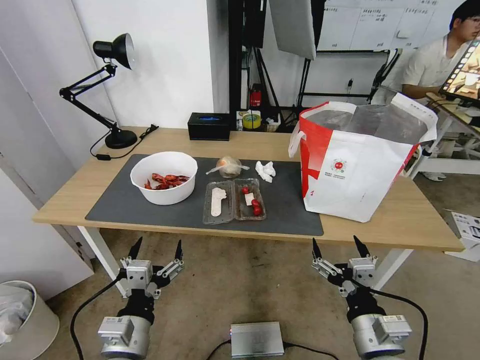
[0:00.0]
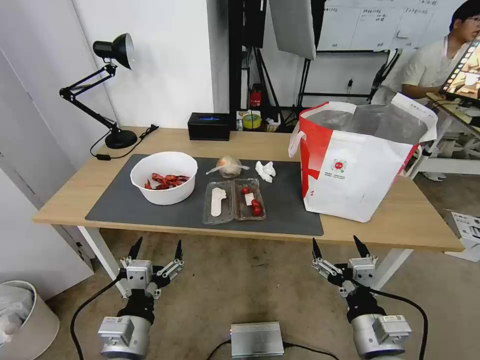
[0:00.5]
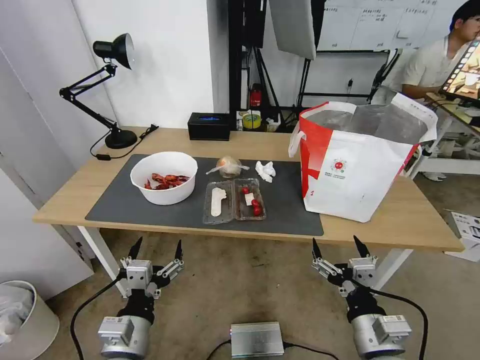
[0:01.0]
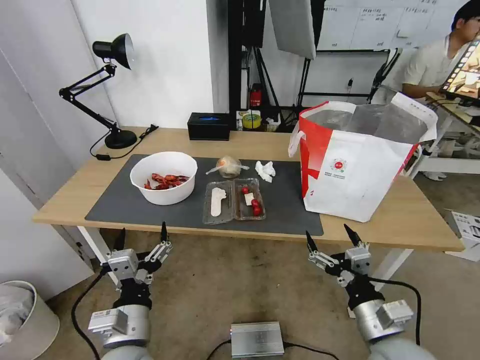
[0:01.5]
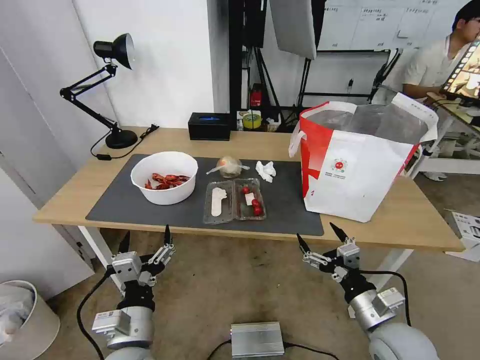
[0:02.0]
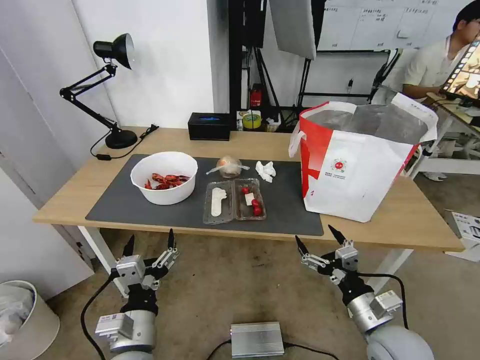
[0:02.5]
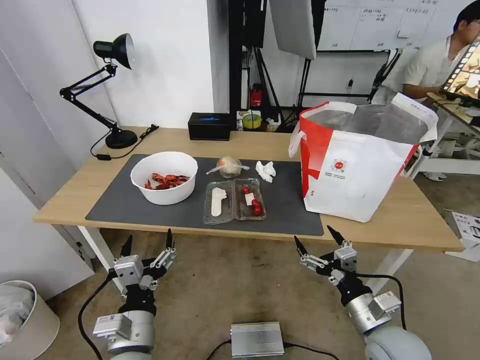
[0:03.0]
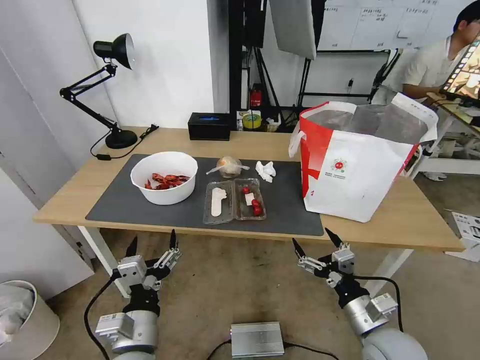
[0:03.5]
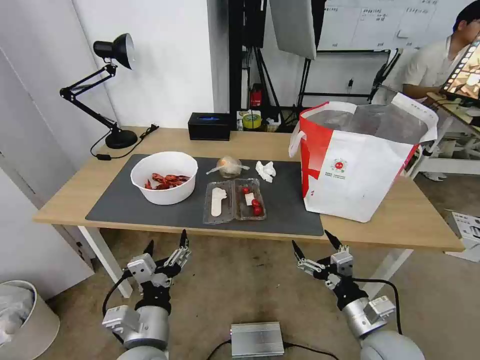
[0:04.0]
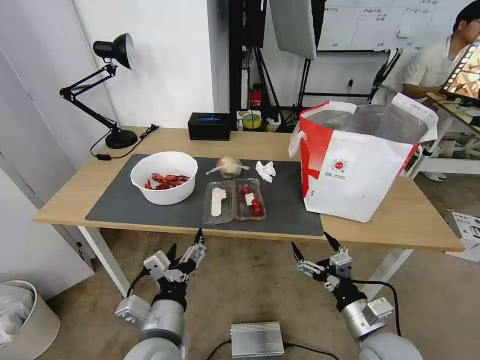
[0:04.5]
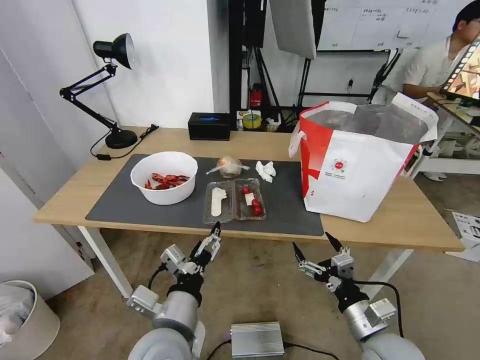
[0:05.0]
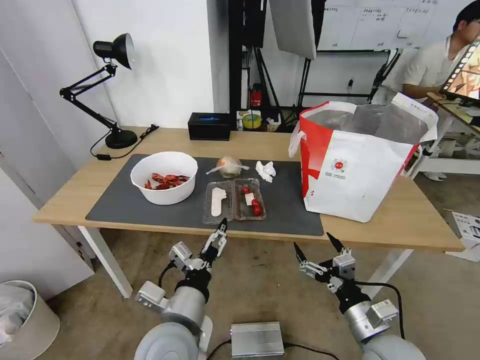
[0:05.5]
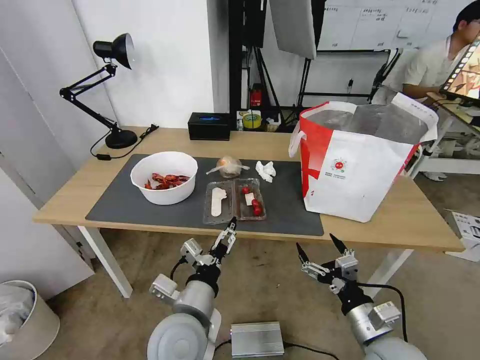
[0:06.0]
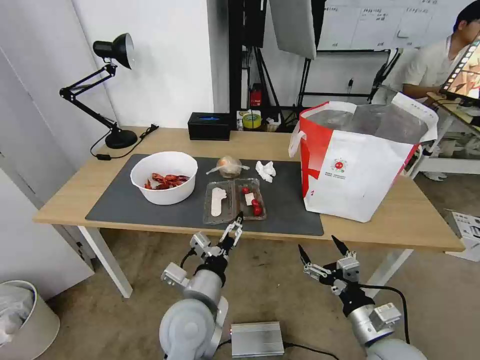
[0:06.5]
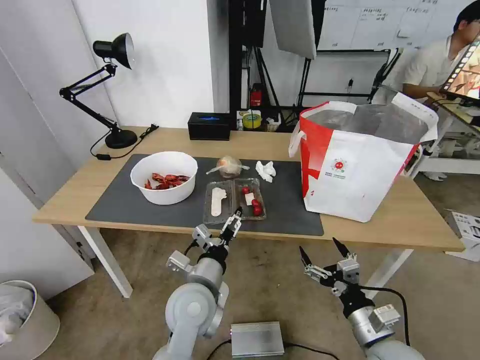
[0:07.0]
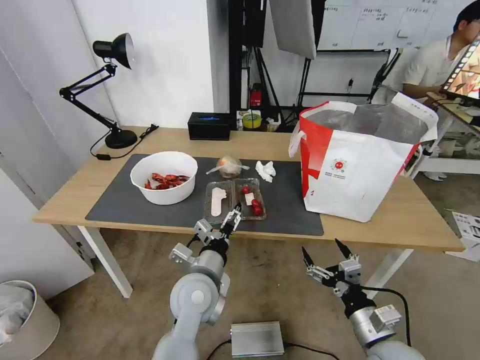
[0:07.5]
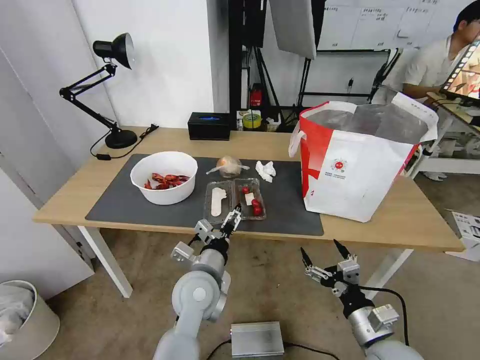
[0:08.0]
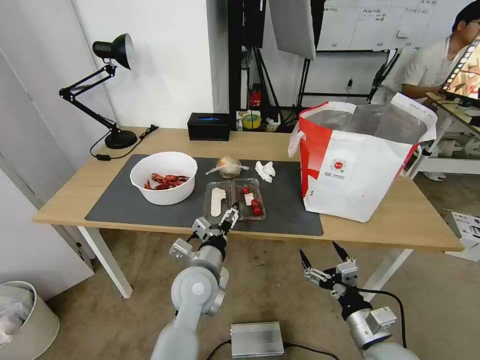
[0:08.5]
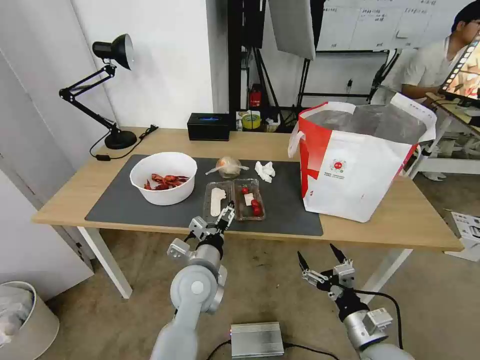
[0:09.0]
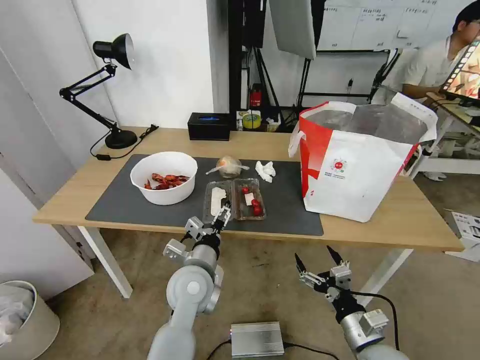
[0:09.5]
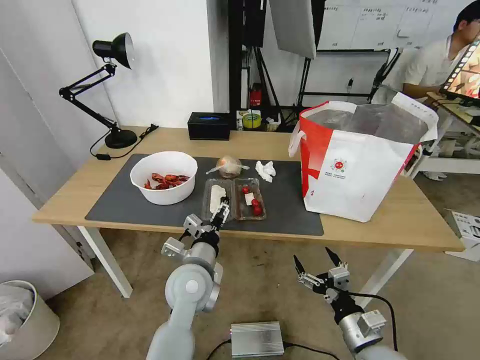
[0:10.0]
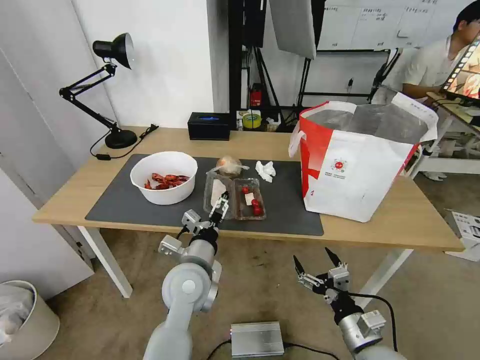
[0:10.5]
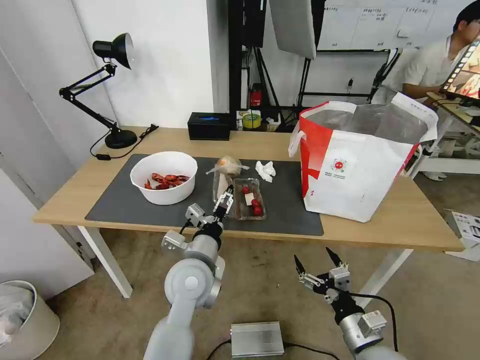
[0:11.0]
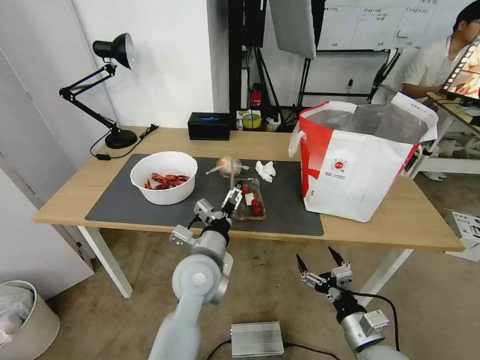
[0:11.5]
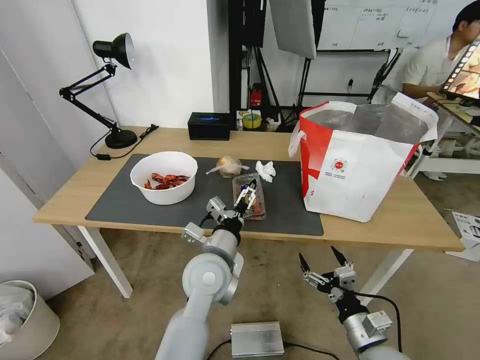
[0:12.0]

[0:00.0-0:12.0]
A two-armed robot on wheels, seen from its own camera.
Task of the whole recording: Pick up the trash from the table and place it into the takeout bag.
0:02.0 to 0:04.0: There are only small adjustments of the grippers.
0:04.0 to 0:06.0: The left gripper is displaced to the right by about 5 cm.
0:06.0 to 0:08.0: The left gripper shifts approximately 10 cm forward.
0:08.0 to 0:12.0: The grippers stay close to where they were, moving slightly.

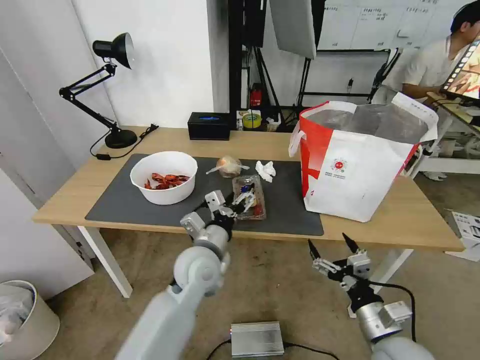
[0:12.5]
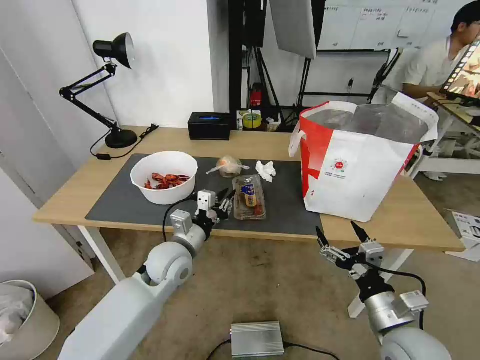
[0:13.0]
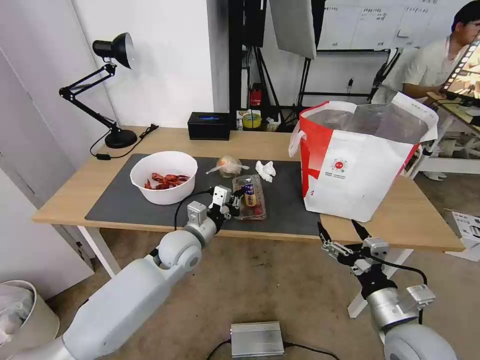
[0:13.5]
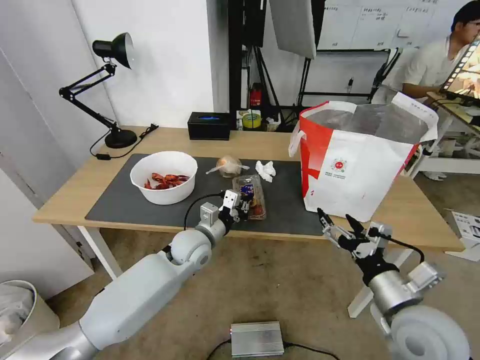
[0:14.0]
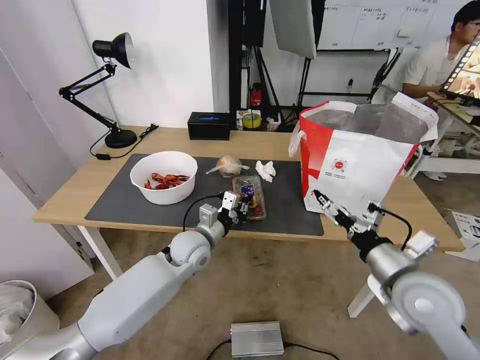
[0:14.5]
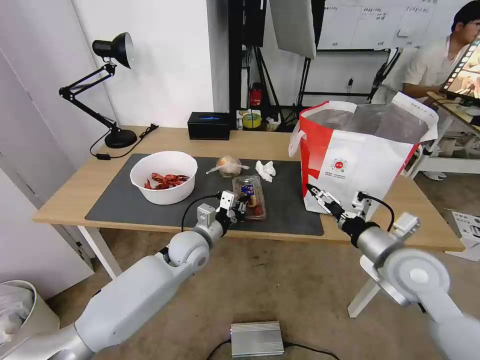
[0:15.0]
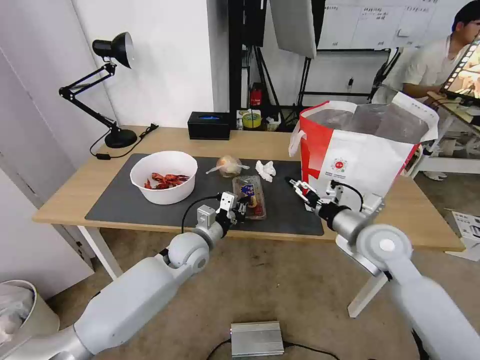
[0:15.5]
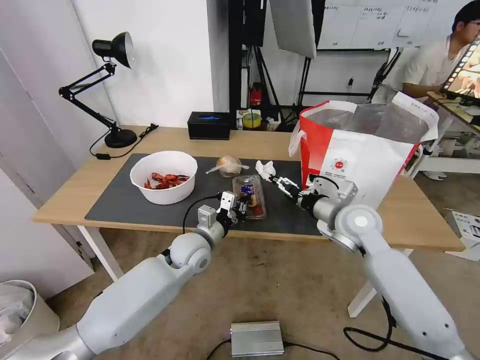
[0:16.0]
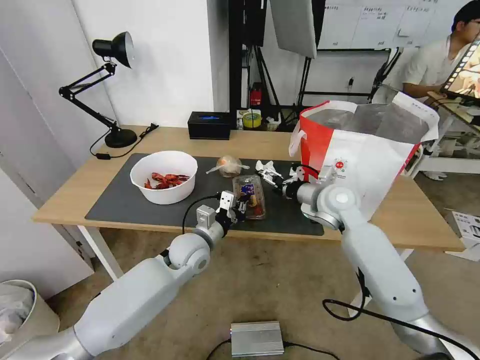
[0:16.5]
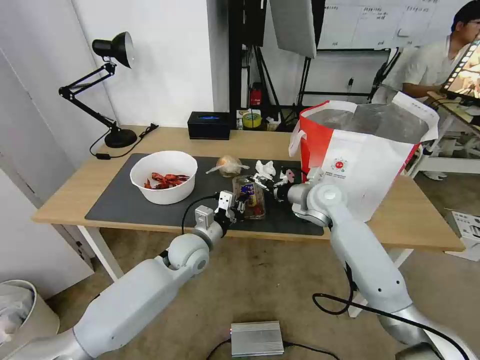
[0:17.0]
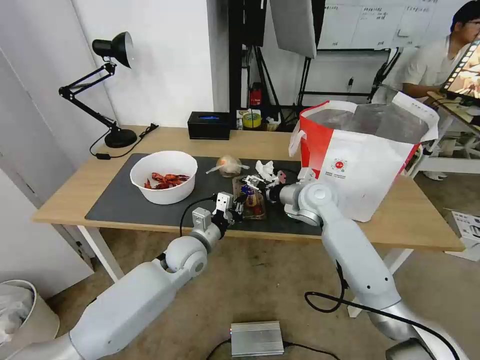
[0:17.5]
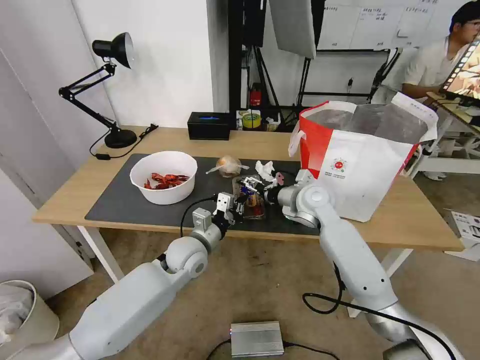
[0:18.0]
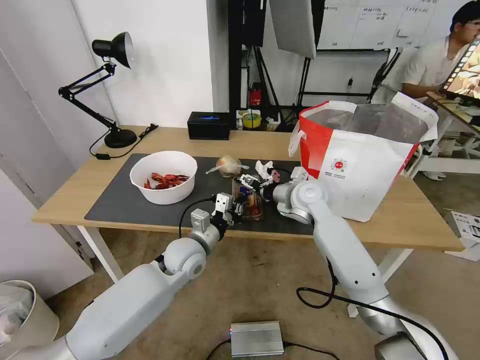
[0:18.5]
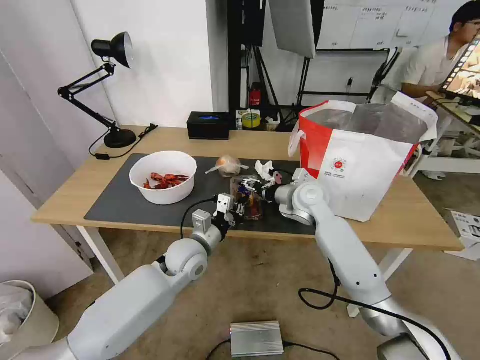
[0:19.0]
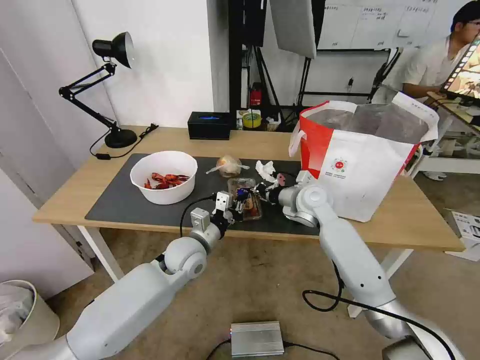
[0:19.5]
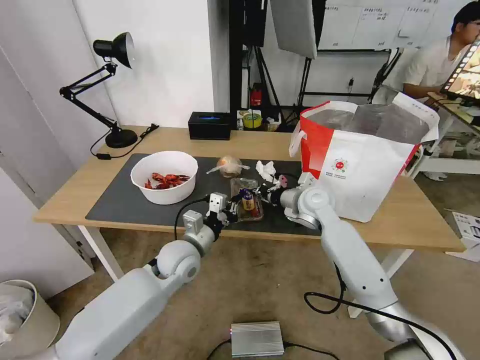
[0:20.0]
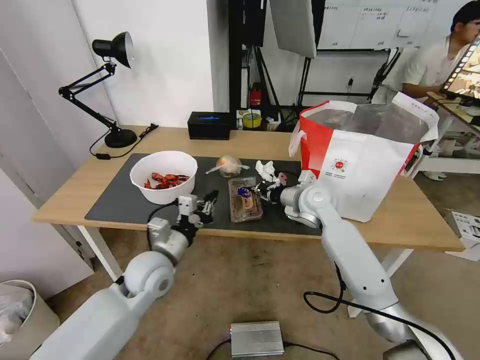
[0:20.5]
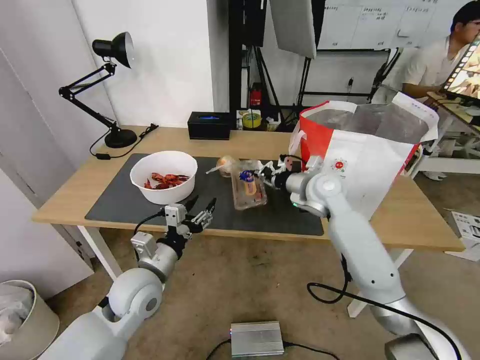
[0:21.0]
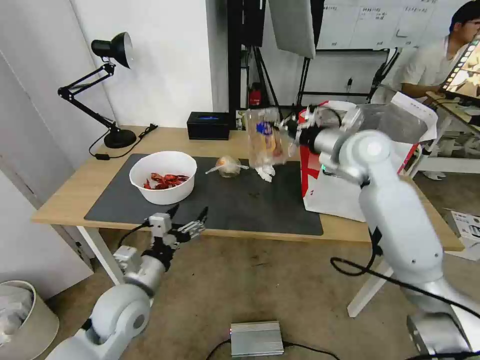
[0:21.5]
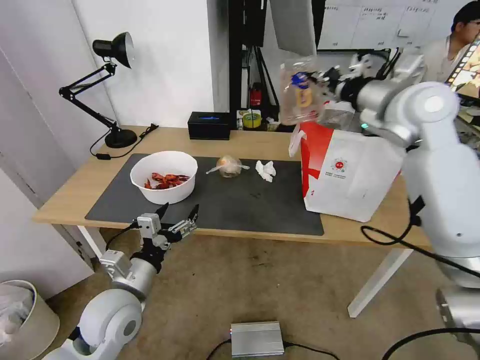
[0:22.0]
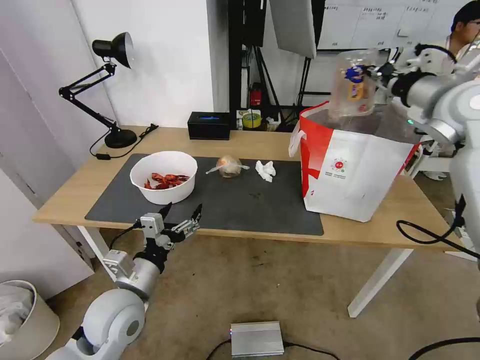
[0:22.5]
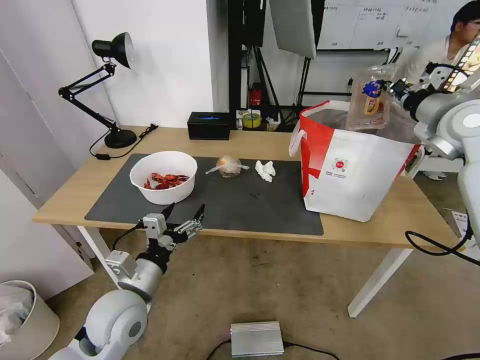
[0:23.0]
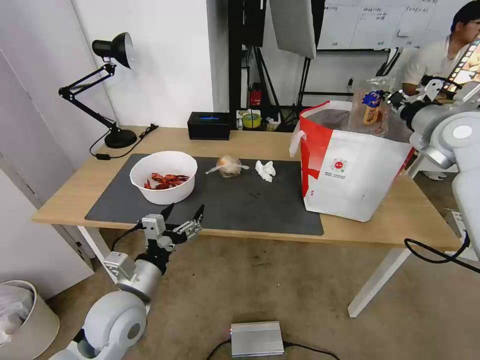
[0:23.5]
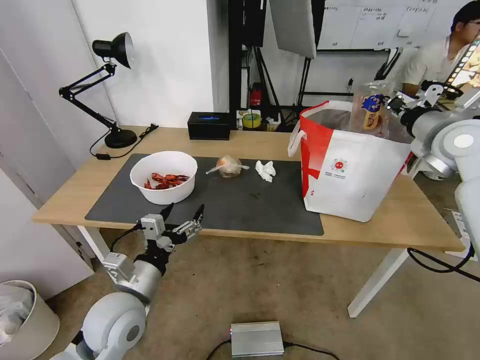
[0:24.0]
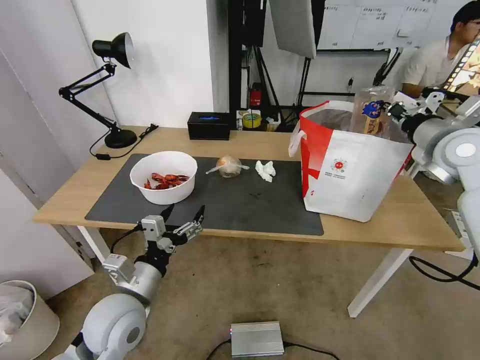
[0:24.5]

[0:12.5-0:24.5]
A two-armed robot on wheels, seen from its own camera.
Task of the whole recording: Pick up the trash from the table and place it into the takeout bag.
0:12.5 to 0:14.5: The left gripper moves forward, approximately 5 cm, and closes, while the right gripper travels upward and forward by approximately 15 cm.
0:14.5 to 0:16.5: The right gripper heads forward, covering about 20 cm.
0:16.5 to 0:18.5: The right gripper moves to the left, approximately 5 cm.
0:18.5 to 0:20.5: The left gripper travels to the left and backward by some 10 cm. Meanwhile the right gripper closes.
0:20.5 to 0:22.5: The left gripper shifts roughly 10 cm backward, and opens up. Meanwhile the right gripper heads upward and to the right, covering about 30 cm.
0:22.5 to 0:24.5: The right gripper travels downward by about 5 cm.

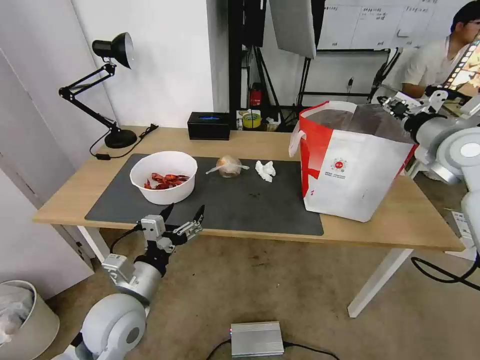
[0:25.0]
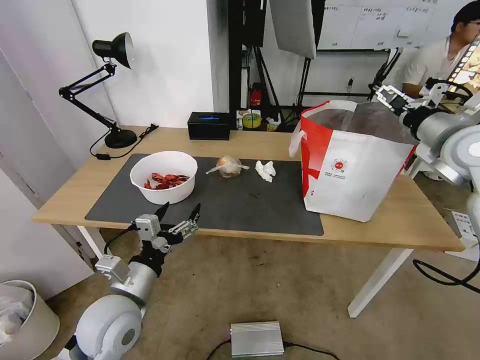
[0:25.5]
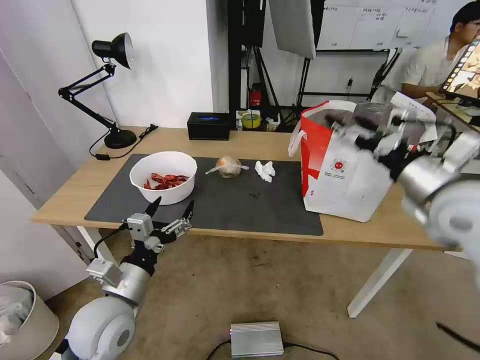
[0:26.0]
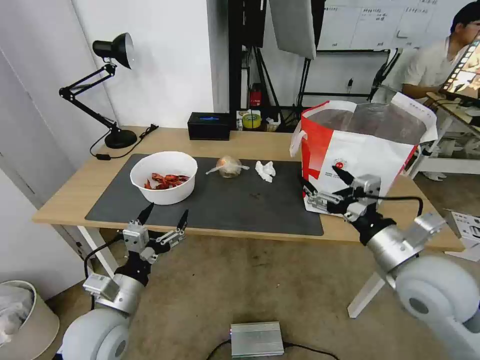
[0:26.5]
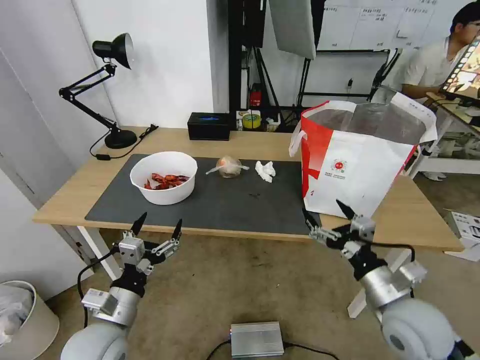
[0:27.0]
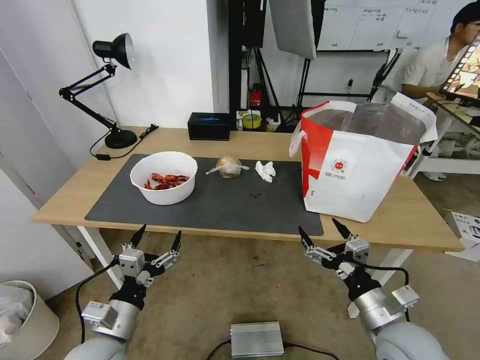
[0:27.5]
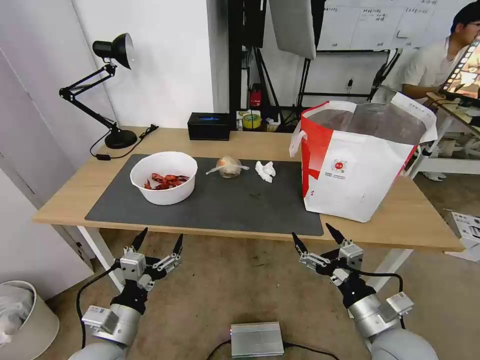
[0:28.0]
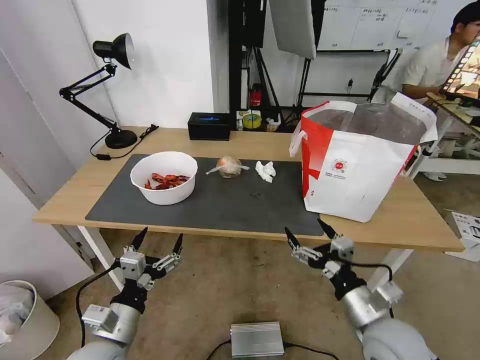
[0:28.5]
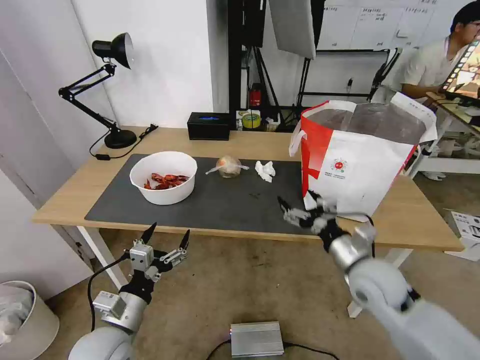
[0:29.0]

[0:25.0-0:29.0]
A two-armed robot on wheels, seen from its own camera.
Task of the whole recording: Pick up the trash from the table and place it into the takeout bag.
0:25.0 to 0:27.0: The left gripper changes place by about 5 cm. Meanwhile the right gripper moves backward, downward and to the left, roughly 35 cm, and opens its fingers.
0:27.0 to 0:29.0: The right gripper heads forward, covering roughly 10 cm.
